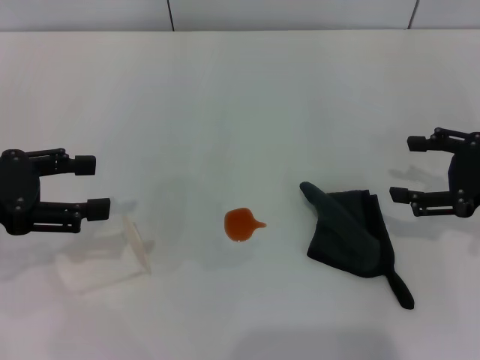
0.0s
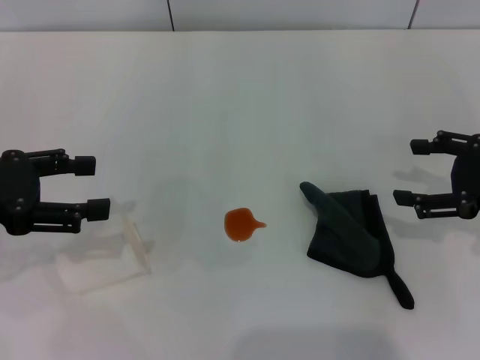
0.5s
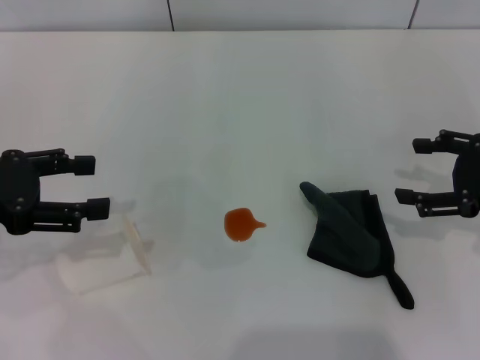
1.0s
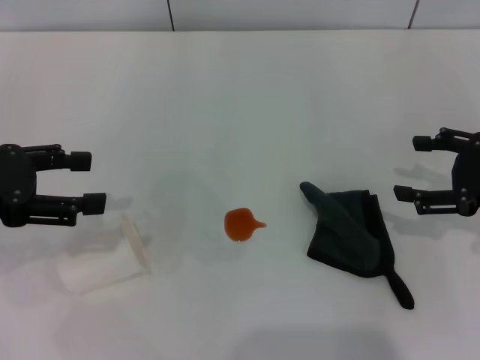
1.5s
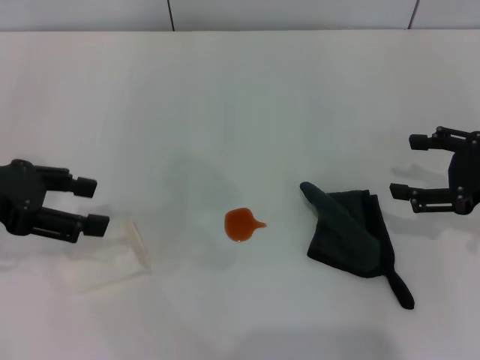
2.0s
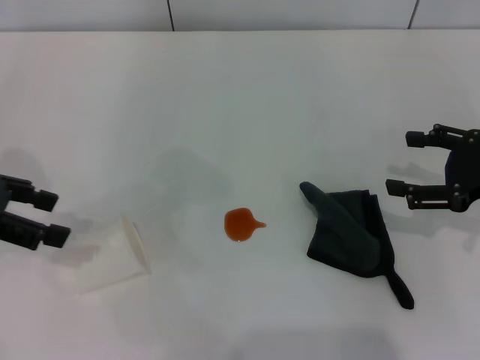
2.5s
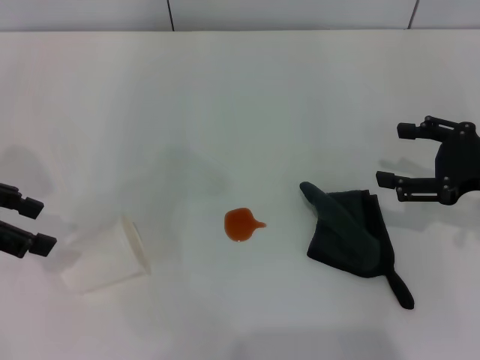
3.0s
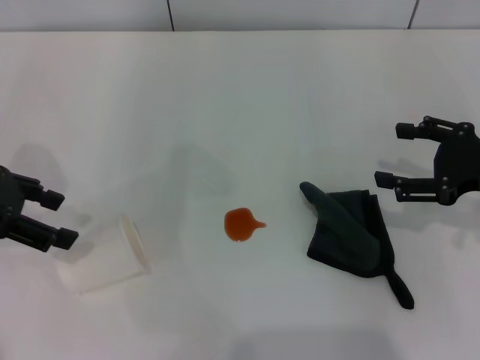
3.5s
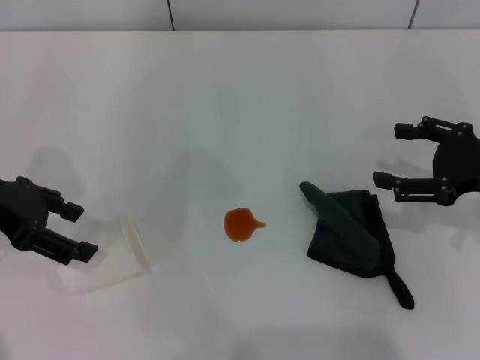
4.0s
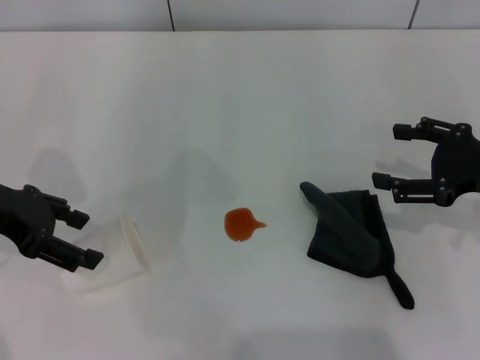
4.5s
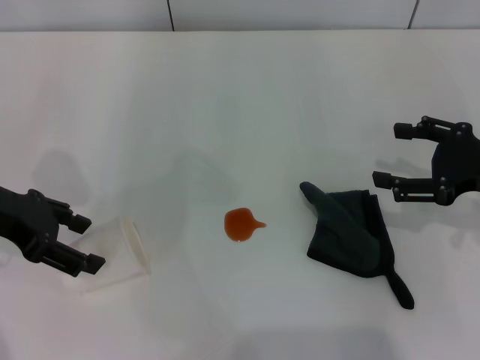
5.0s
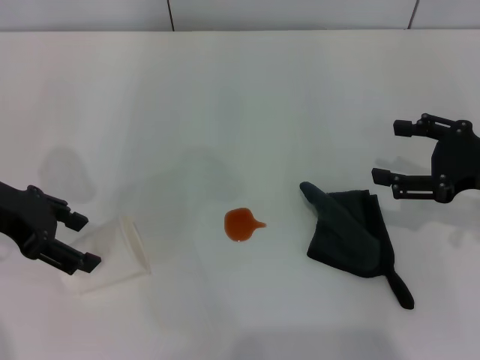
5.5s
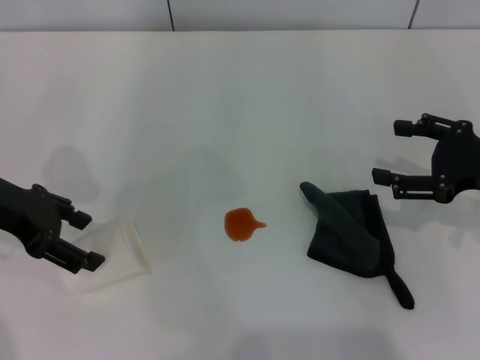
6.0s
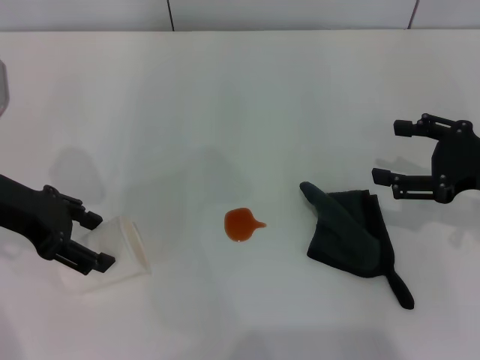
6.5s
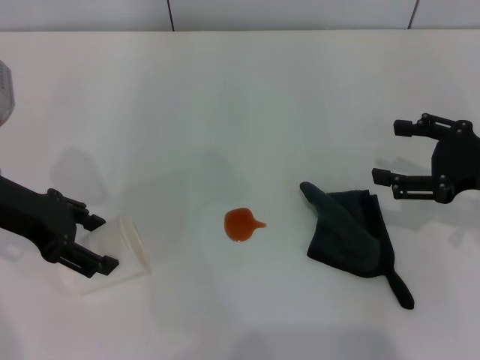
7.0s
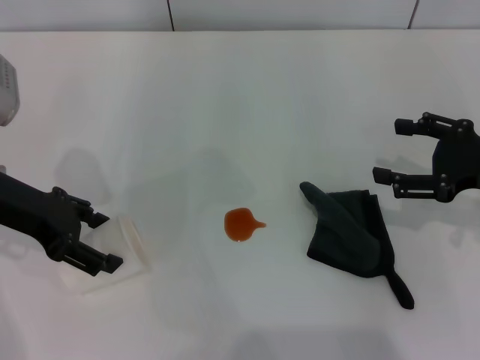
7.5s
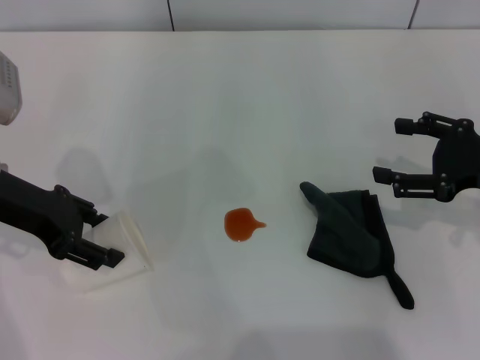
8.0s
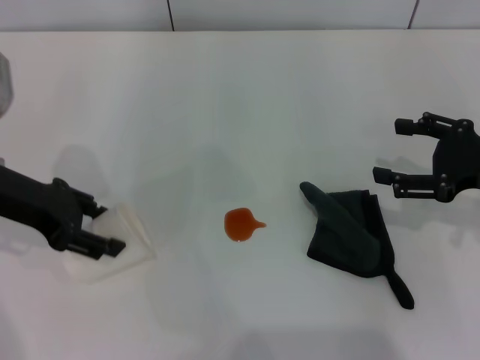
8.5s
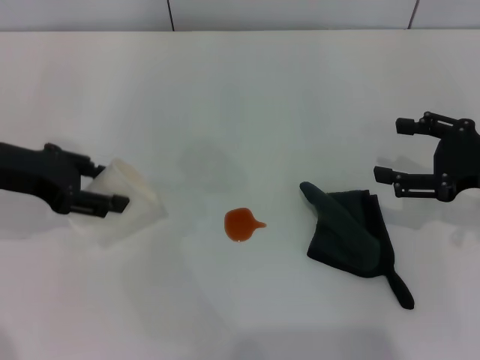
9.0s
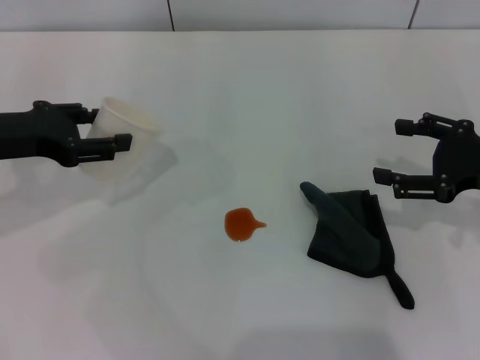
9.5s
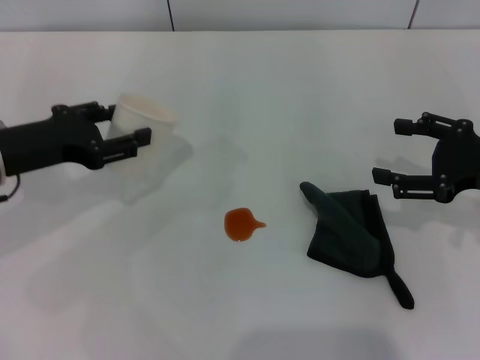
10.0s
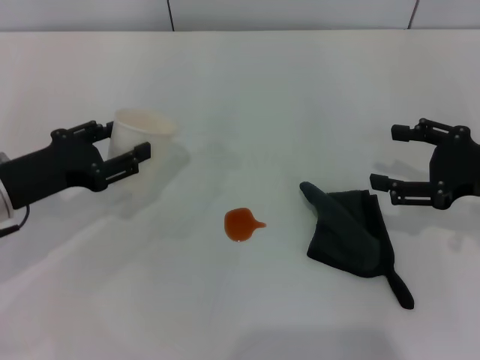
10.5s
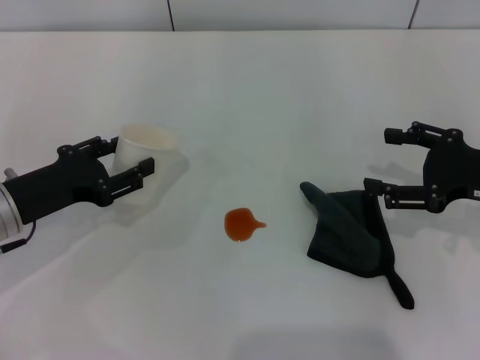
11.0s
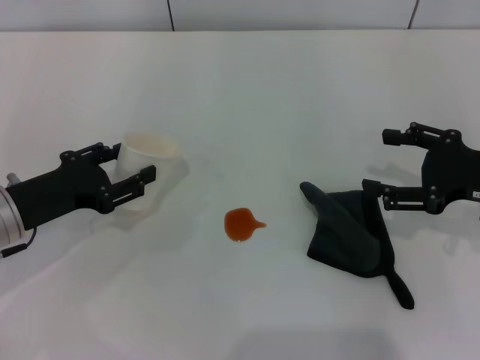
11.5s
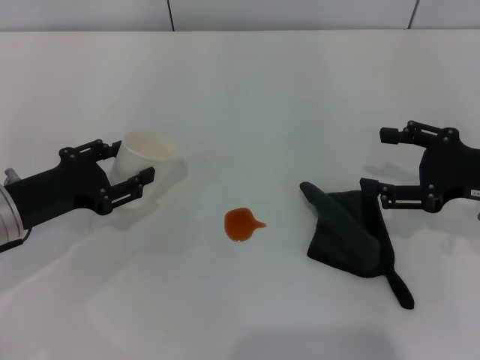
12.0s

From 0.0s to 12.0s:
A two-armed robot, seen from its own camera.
Step, from 0.0s to 8.0s: Grasp the paper cup with the left gripper.
From 0.0s to 2.0s: The grippers move only a little.
From 2.0s to 4.0s: There are only small adjustments of the grippers.
From 4.0s to 8.0s: The grippers stay close to where they were, moving slightly.
From 8.0s to 10.0s: The left gripper closes.
From 10.0s to 12.0s: The left gripper heads downward, covering approximately 5 cm.

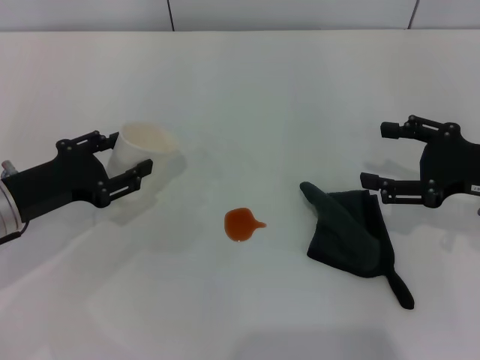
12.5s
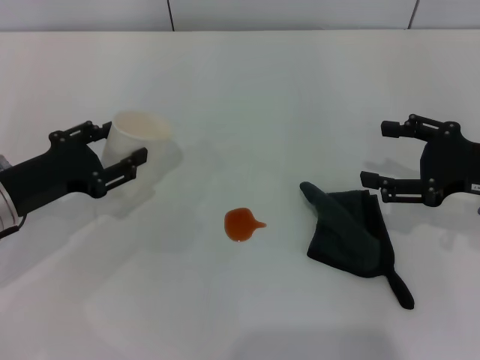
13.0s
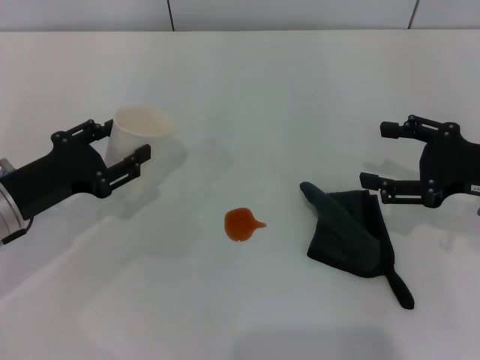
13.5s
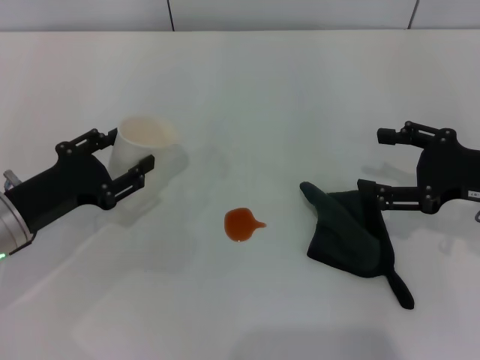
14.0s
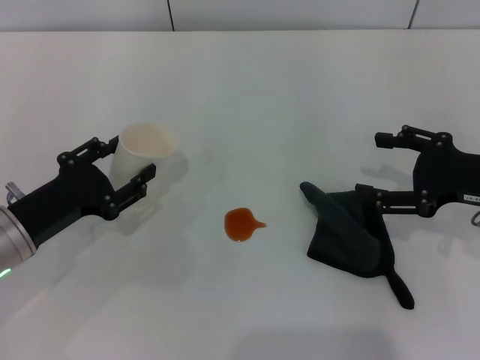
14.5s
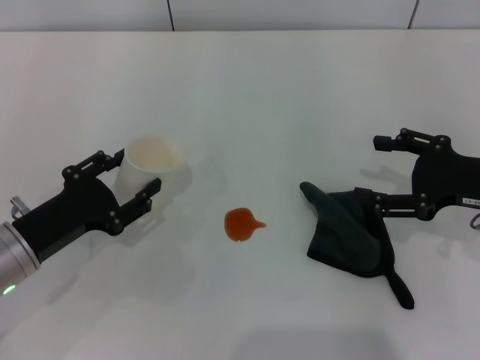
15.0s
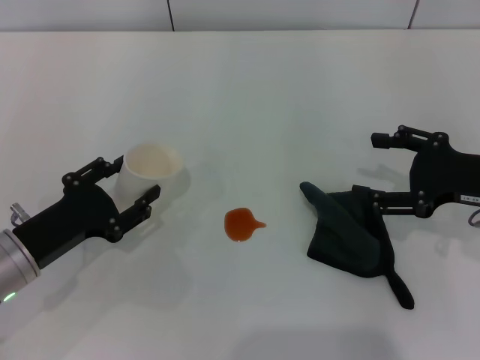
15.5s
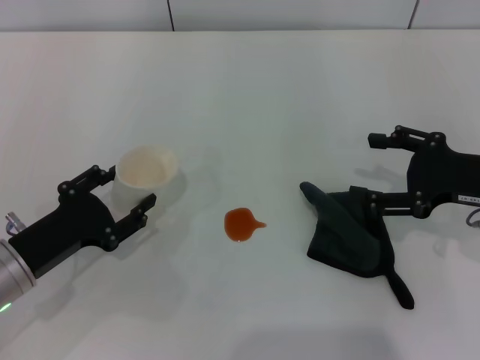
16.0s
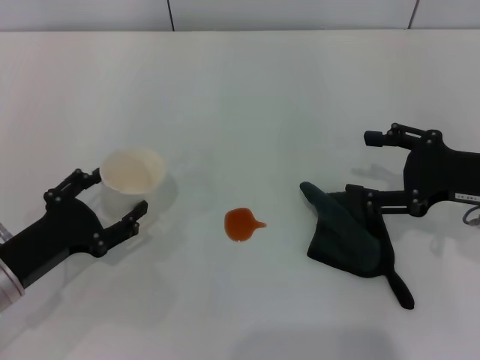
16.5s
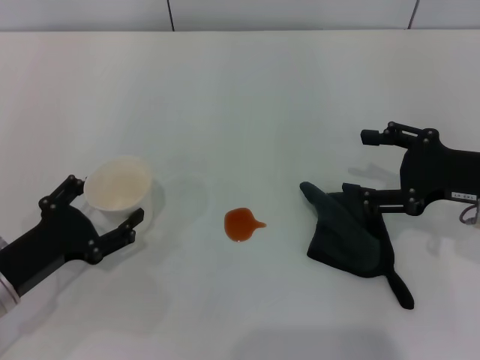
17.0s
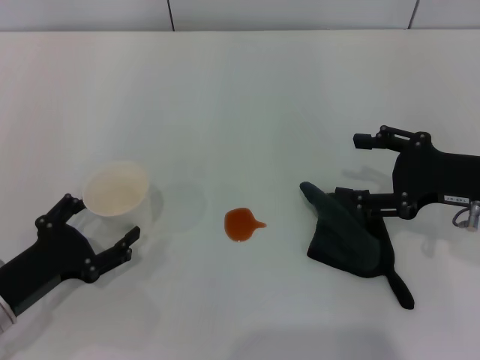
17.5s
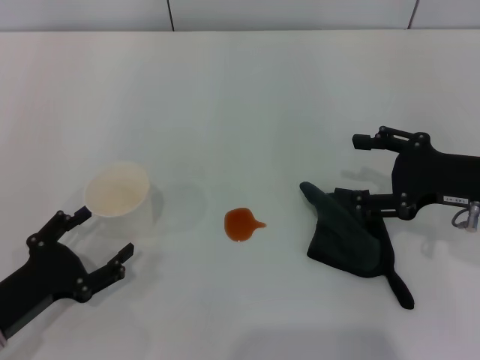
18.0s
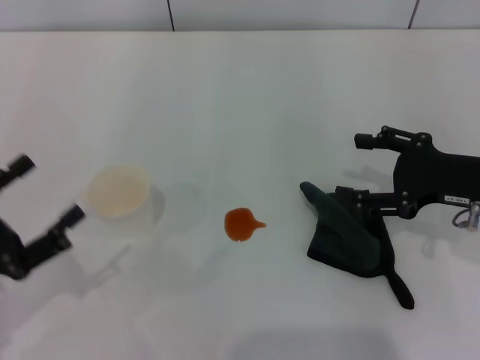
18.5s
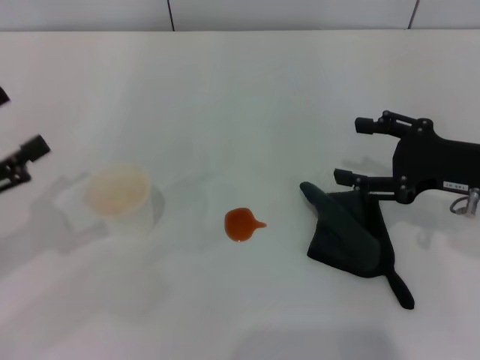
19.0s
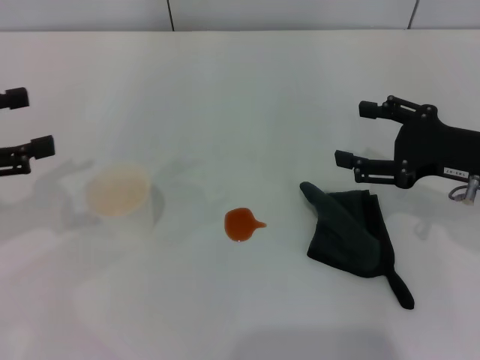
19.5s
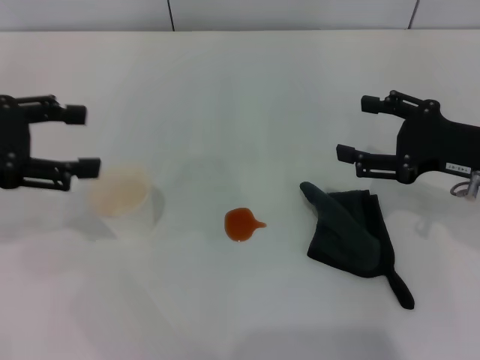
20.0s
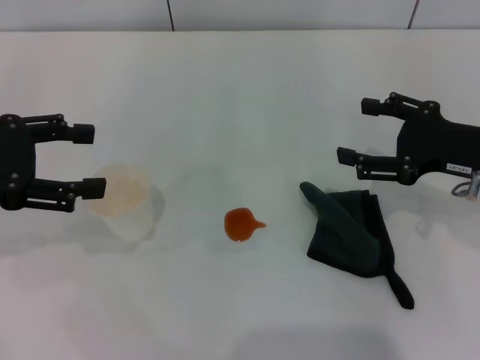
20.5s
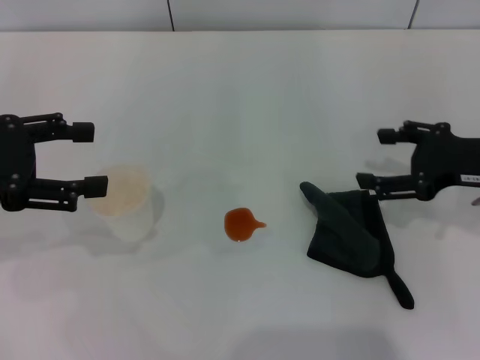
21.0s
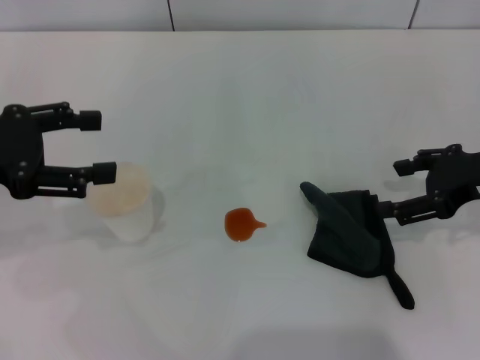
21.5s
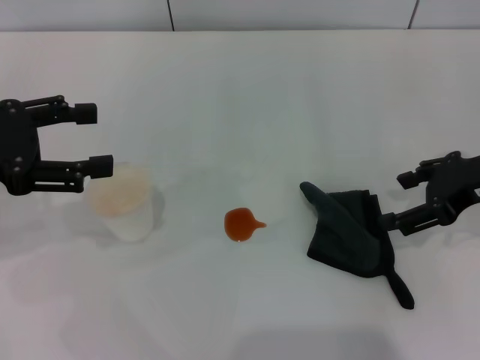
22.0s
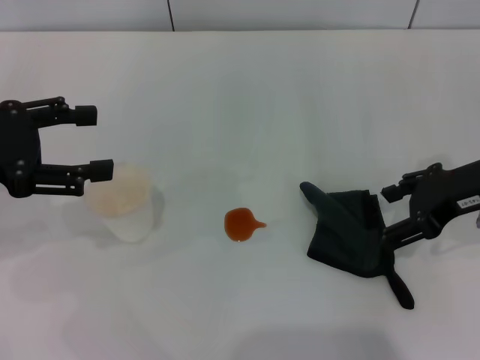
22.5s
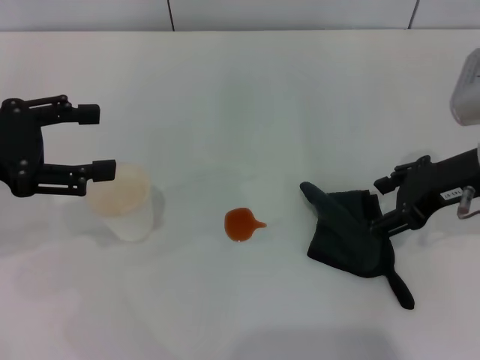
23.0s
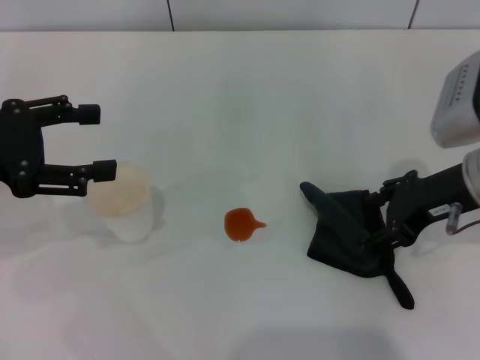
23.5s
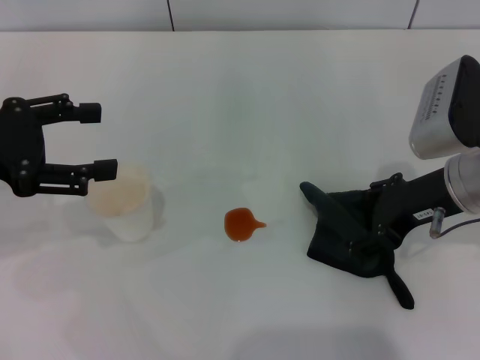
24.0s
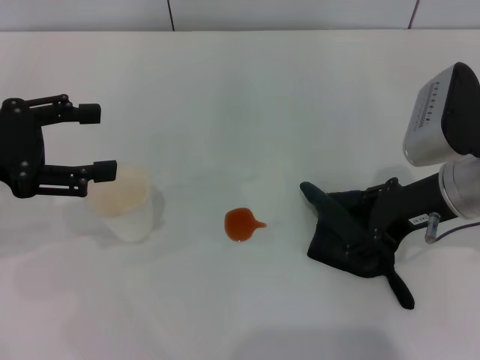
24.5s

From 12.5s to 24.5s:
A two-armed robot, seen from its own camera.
Step, from 12.5s to 18.0s: Stand the paper cup upright with the left gripper.
From 12.5s to 14.5s: The grippers move only a little.
From 14.5s to 16.5s: There are only small adjustments of the grippers.
From 16.5s to 18.5s: The left gripper moves backward, some 5 cm, and opens.
From 18.5s to 20.5s: The left gripper heads forward and upward, covering about 15 cm.
From 22.5s to 24.5s: The right gripper shifts by roughly 5 cm.

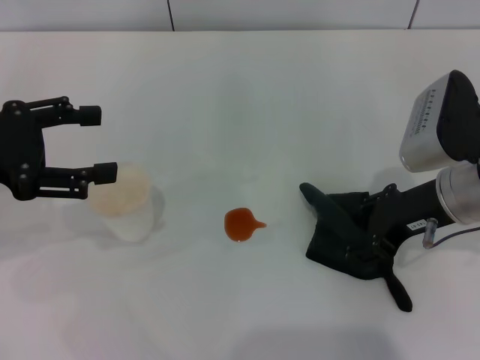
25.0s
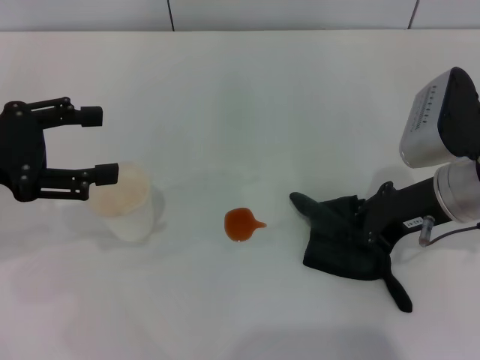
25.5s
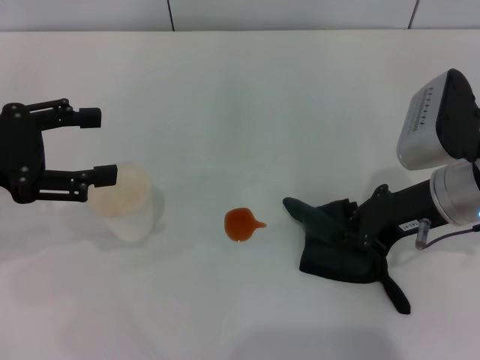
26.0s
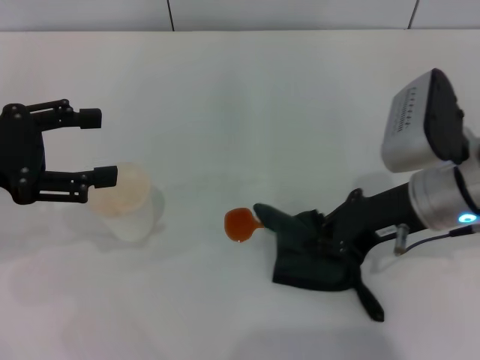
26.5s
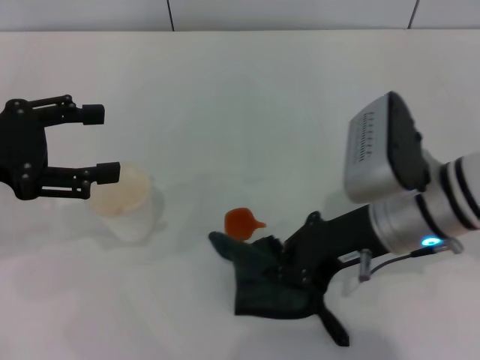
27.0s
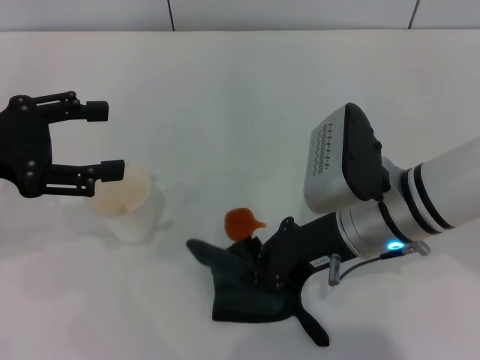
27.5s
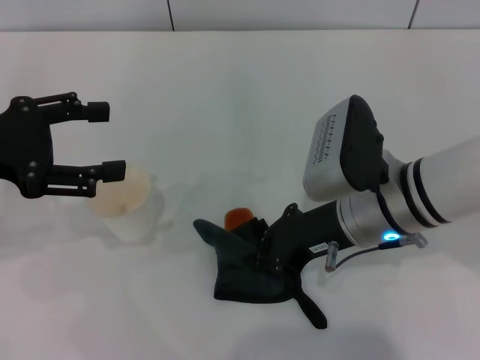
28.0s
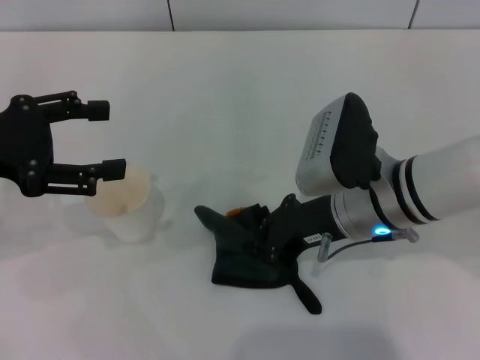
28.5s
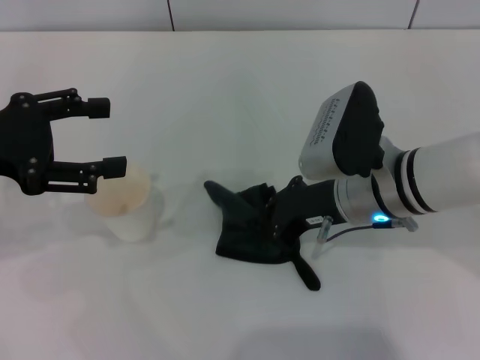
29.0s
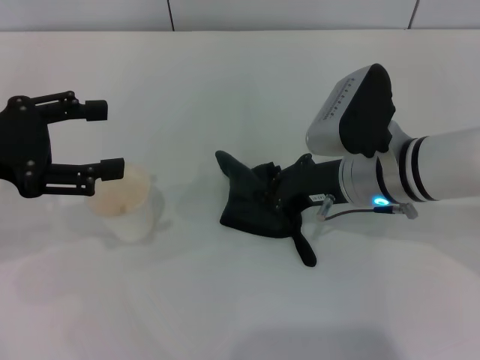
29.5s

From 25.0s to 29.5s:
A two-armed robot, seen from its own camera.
From 25.0s to 27.0s: The right gripper moves to the left, some 5 cm, and closes.
From 27.0s to 29.5s: The right gripper ends up roughly 5 cm from where it was.
